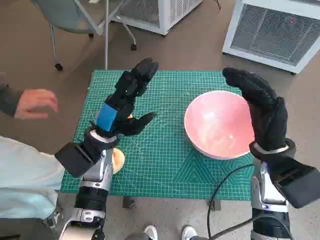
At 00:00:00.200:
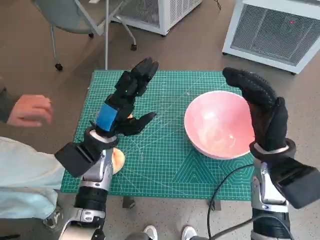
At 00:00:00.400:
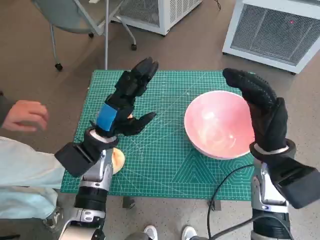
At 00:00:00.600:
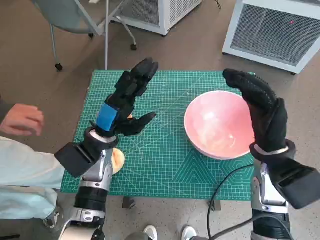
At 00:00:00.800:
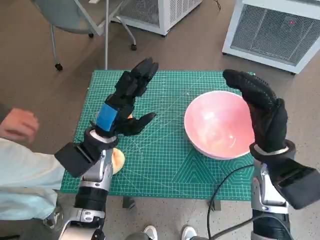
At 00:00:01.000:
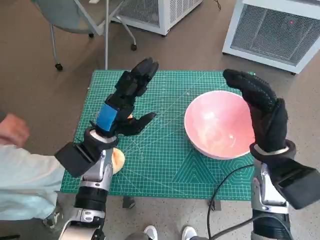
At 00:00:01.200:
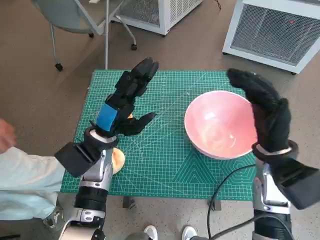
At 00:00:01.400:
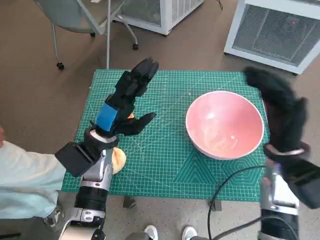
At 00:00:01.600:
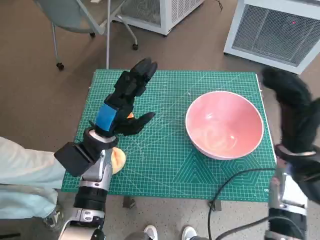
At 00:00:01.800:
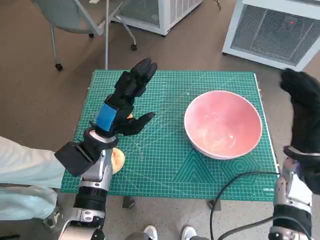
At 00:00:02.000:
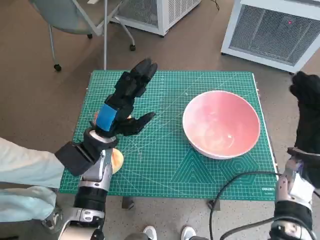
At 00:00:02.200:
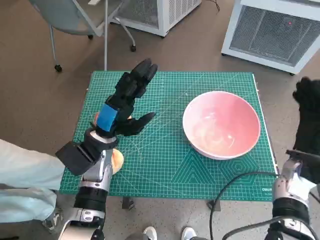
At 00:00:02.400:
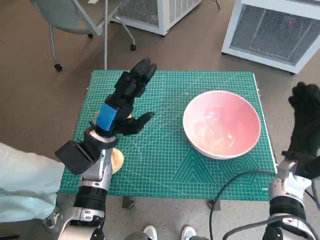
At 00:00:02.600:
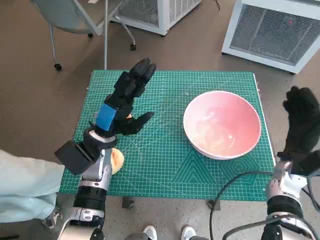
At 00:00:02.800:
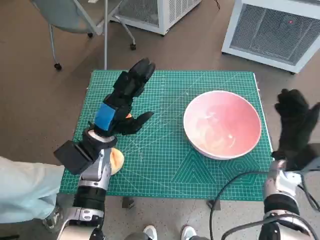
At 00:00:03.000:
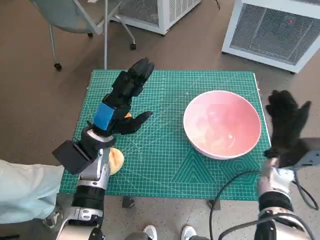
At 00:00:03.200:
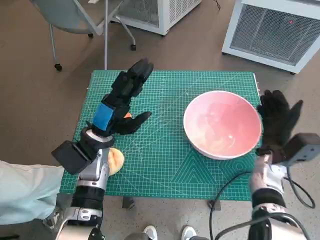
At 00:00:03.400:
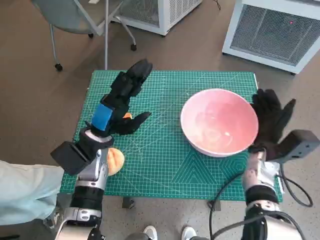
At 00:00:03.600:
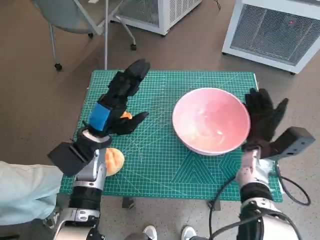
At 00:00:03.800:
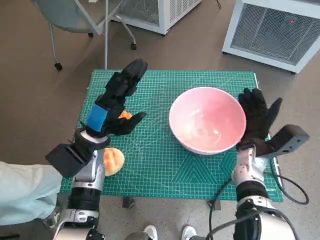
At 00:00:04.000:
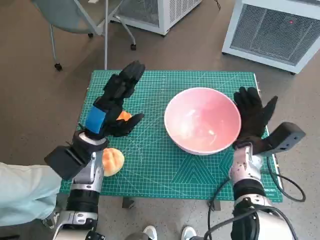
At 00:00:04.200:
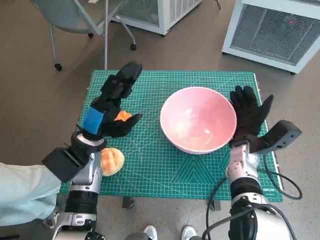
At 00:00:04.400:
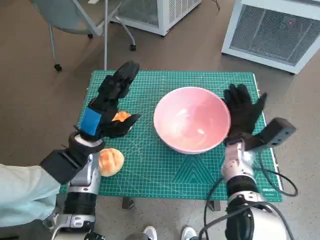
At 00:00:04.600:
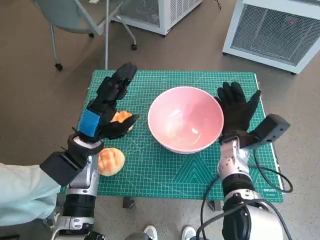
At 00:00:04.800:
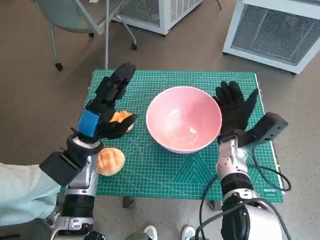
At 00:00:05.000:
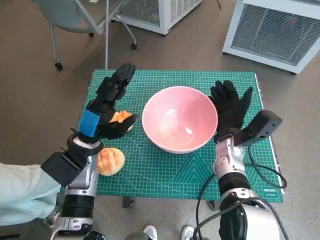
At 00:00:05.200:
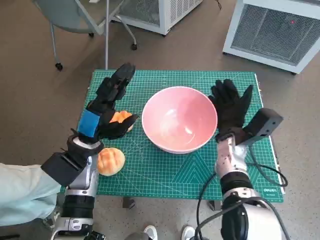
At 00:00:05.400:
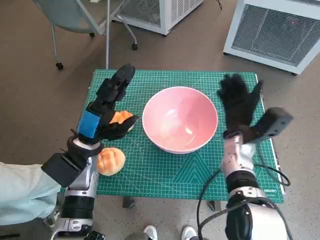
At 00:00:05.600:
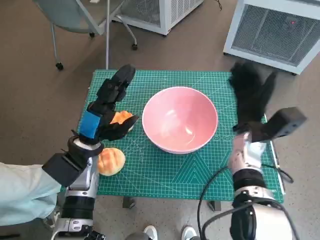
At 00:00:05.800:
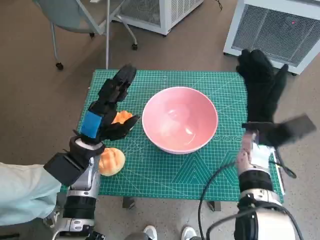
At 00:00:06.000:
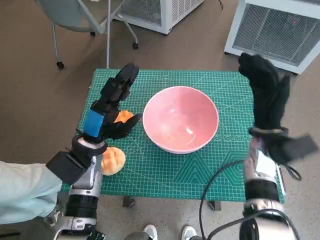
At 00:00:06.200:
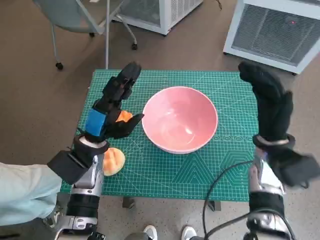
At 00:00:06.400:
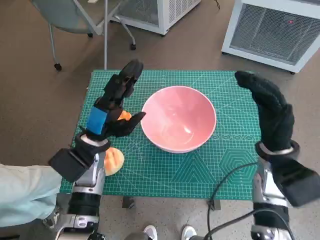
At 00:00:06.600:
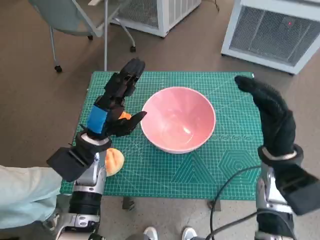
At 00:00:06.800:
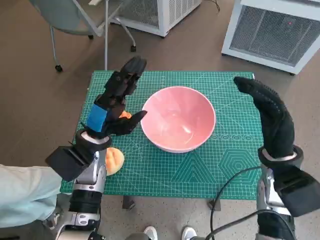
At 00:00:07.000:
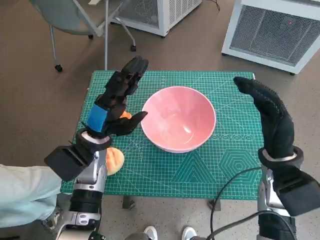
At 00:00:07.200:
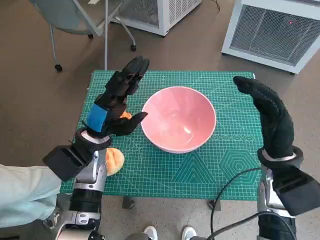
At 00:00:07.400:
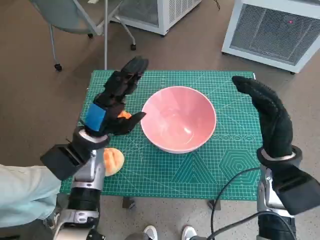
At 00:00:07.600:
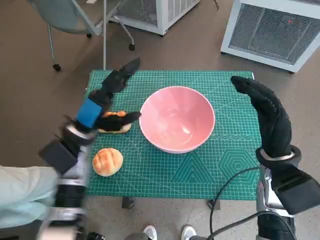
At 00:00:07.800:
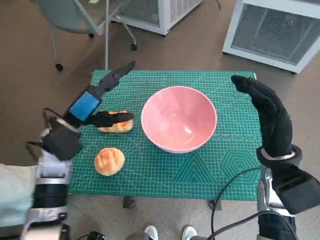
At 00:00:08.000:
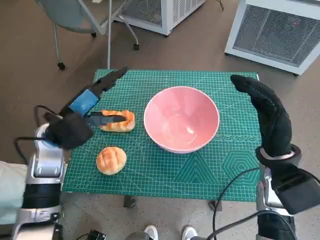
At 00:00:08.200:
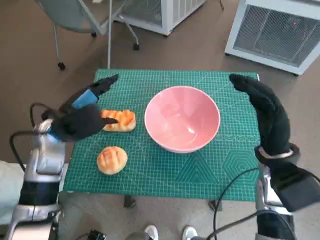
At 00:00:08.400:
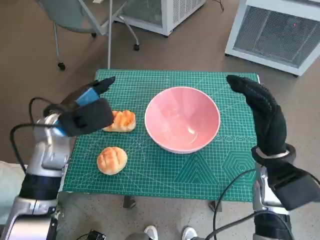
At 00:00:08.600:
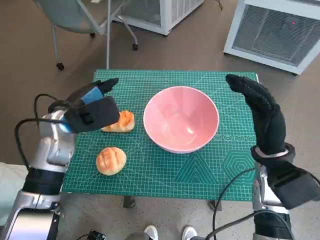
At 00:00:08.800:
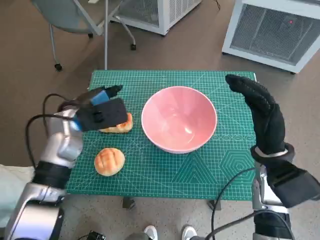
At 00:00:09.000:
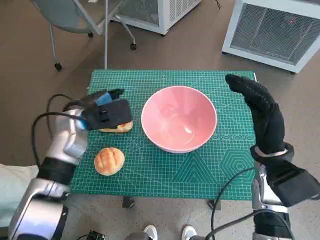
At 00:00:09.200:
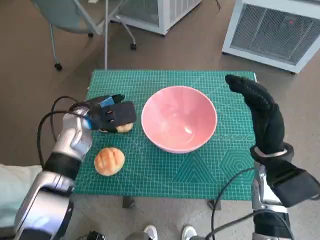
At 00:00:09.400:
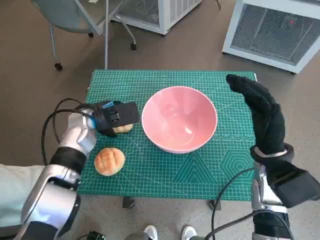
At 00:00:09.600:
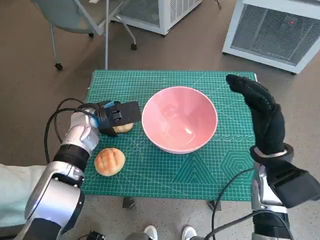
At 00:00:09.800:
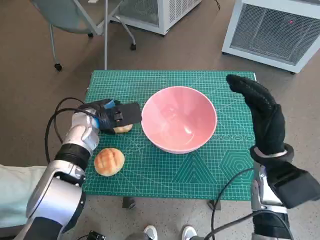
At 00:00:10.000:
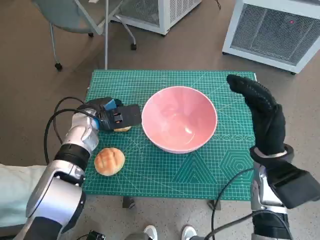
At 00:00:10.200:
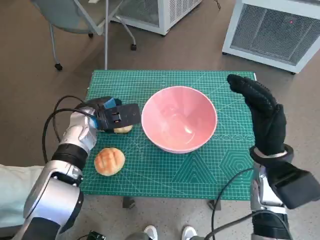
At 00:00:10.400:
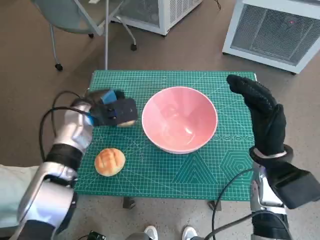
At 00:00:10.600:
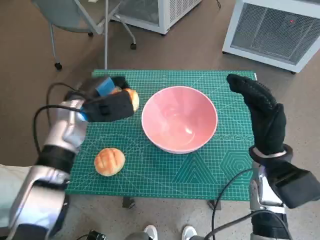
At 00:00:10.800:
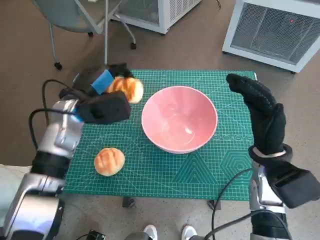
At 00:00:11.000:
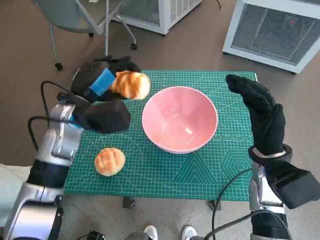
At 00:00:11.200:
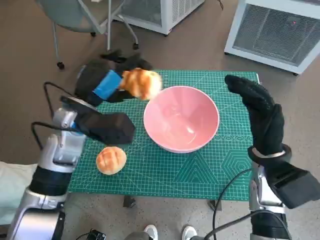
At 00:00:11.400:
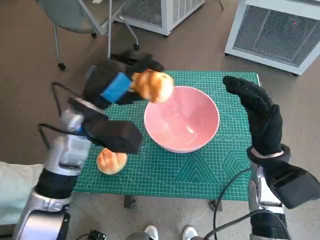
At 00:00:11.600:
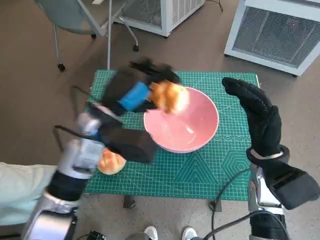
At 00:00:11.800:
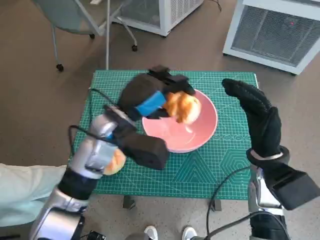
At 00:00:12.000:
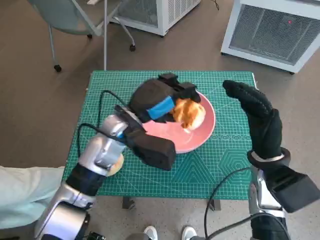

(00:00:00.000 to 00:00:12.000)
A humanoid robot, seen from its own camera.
Task of the whole recording: Push the bowl into the center of the table and put the bread into the bowl.
Step, 00:00:00.000 - 00:00:05.200: Move the pink bowl to the center of table with right hand.
Step, 00:00:05.400 - 00:00:10.000: Grasp the long bread with left hand.
00:00:01.600 - 00:00:03.000: The right hand goes approximately 10 cm downward.
00:00:03.000 - 00:00:04.400: The right hand travels to the left by roughly 10 cm.
00:00:04.400 - 00:00:06.000: The right hand heads upward, covering roughly 5 cm.
00:00:06.000 - 00:00:07.600: The right hand is displaced backward by roughly 5 cm.
00:00:09.000 - 00:00:10.400: The hands make only small movements.
00:00:10.400 - 00:00:12.000: The left hand is displaced to the right by some 10 cm.

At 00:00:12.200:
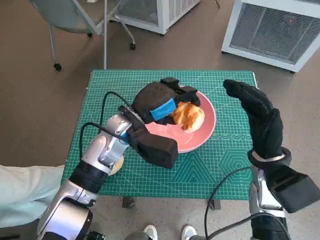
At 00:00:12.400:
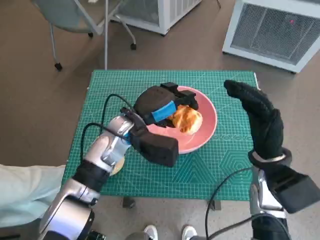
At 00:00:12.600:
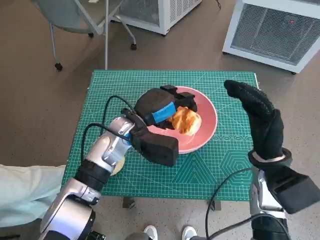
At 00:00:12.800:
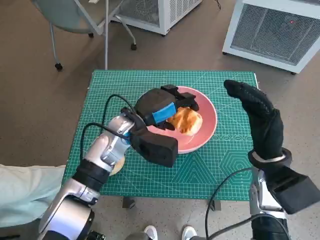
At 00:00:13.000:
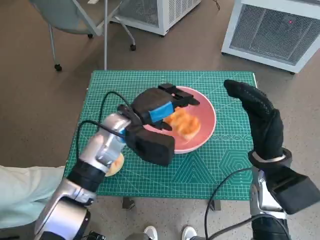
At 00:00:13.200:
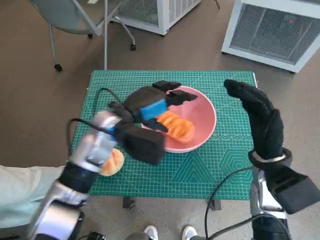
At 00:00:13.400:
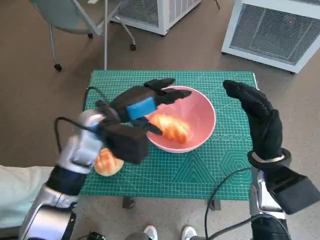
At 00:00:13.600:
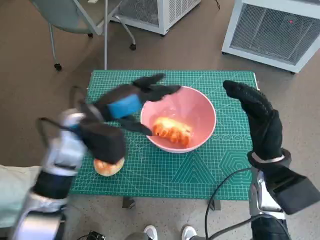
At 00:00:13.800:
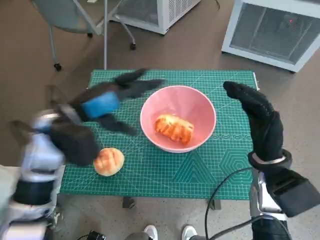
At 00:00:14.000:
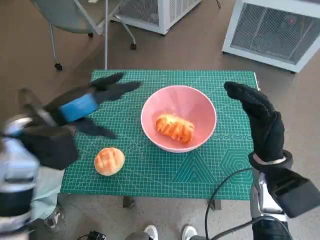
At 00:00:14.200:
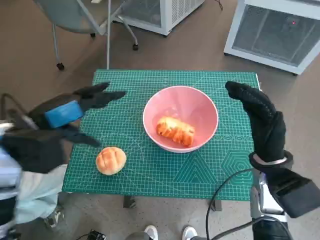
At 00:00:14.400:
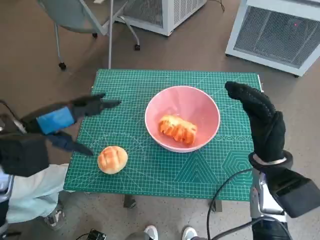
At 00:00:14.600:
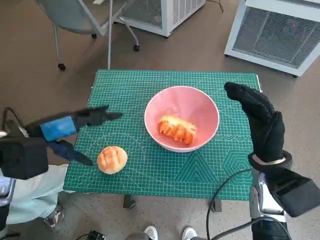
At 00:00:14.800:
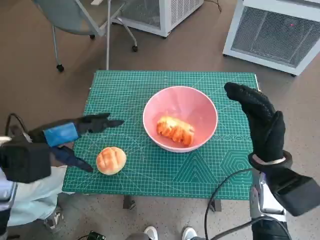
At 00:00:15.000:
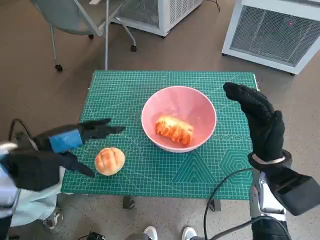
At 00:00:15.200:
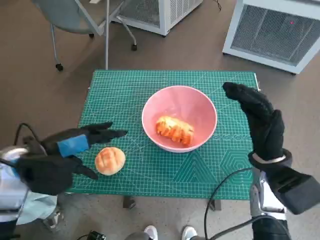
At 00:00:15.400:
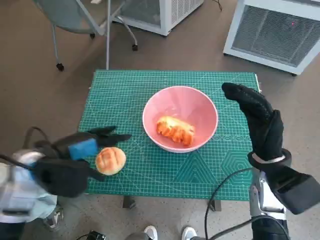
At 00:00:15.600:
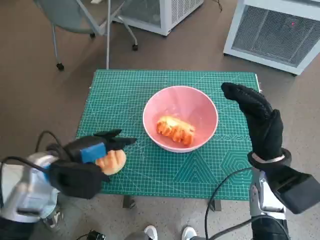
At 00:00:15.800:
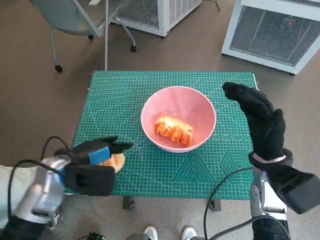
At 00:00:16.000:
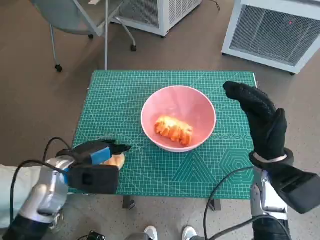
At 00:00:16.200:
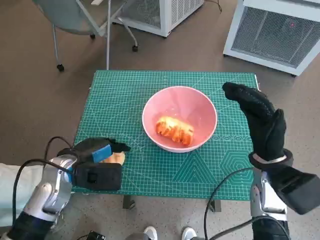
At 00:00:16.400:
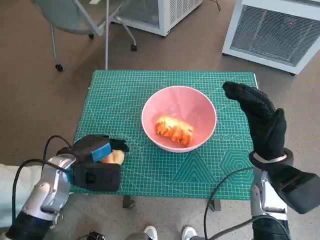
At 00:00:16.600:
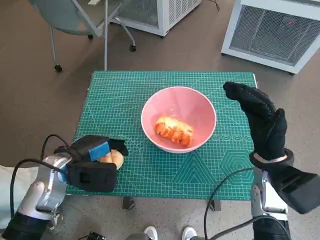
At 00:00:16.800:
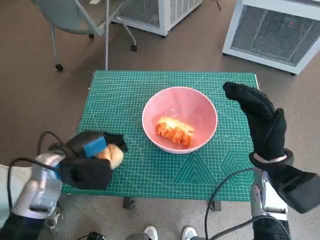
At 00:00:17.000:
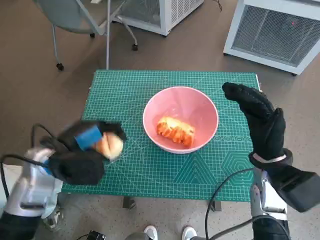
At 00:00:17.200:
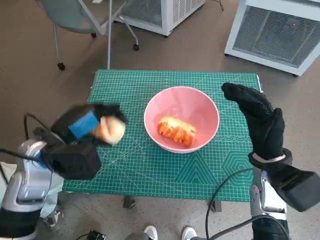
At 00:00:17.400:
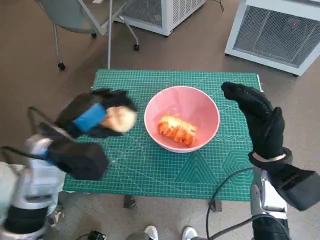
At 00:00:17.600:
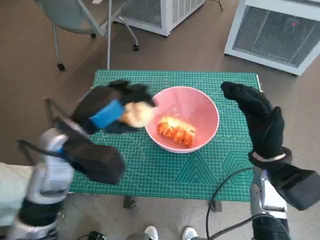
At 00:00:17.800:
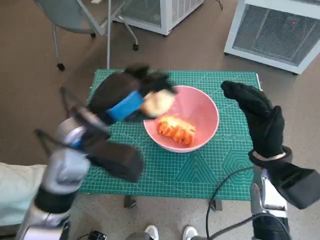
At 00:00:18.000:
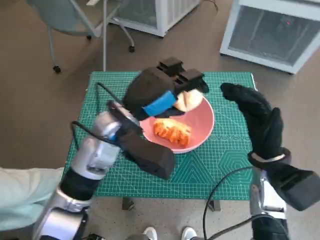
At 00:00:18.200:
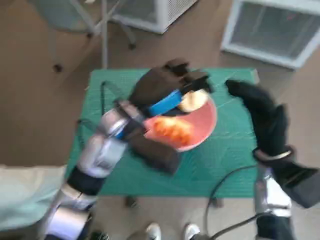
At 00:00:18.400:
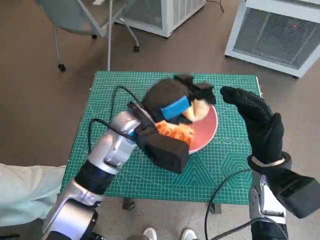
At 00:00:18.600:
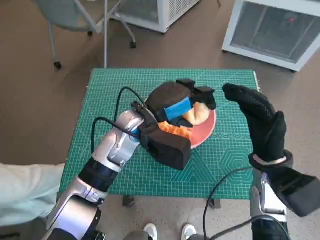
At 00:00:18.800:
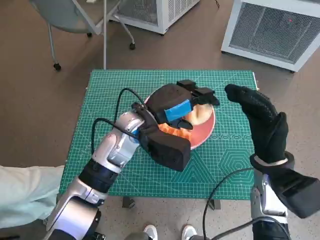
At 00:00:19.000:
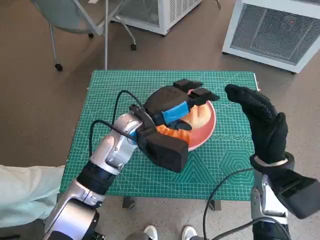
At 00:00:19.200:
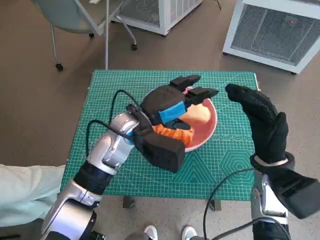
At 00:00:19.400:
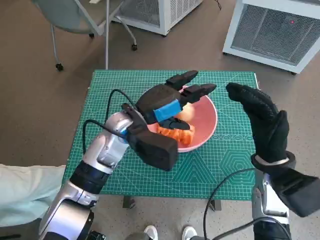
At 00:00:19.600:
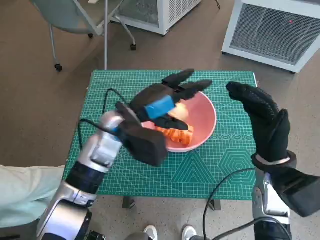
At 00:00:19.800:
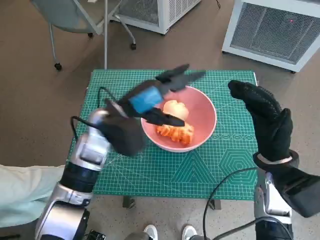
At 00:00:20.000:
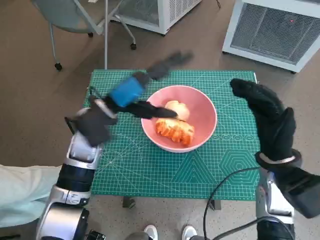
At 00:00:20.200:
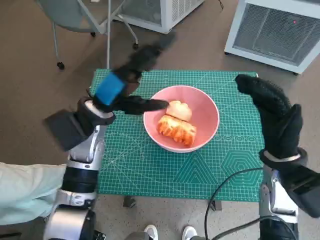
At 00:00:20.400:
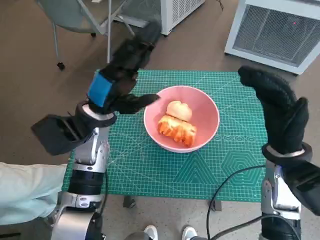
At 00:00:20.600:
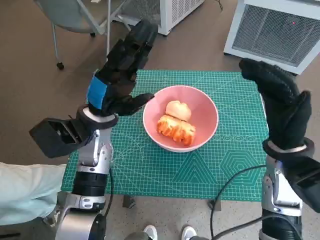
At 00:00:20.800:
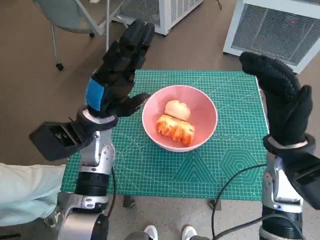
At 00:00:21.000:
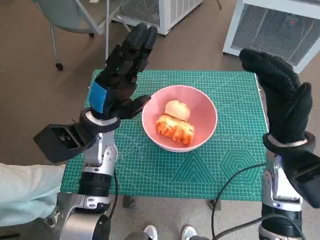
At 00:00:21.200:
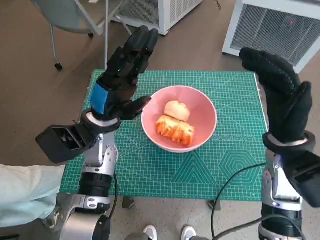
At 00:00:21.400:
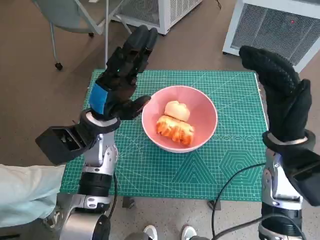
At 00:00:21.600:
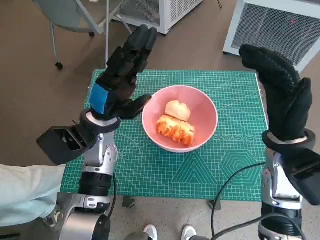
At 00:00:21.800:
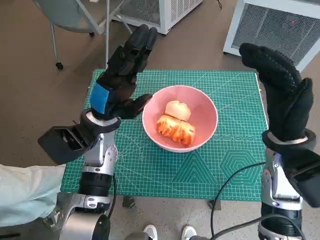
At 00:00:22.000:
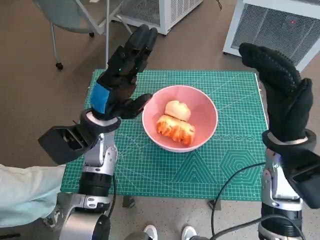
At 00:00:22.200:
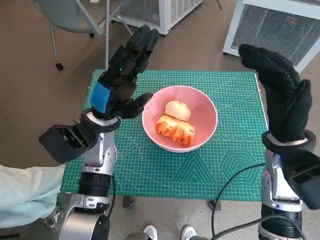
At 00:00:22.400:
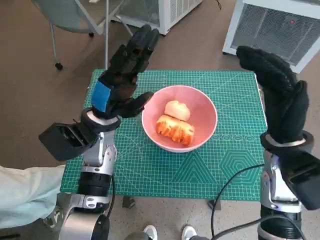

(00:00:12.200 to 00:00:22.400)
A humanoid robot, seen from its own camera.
Task of the whole recording: Push the bowl into the center of the table and put the bread into the bowl.
Step, 00:00:13.200 - 00:00:16.200: Grasp the round bread with left hand.
Step, 00:00:16.400 - 00:00:19.200: Place the round bread in pink bowl with left hand.
00:00:12.200 - 00:00:13.600: The left hand shifts approximately 5 cm to the left.
00:00:13.600 - 00:00:15.200: The left hand is displaced to the left and backward by about 10 cm.
00:00:15.200 - 00:00:16.600: The left hand heads downward, covering roughly 5 cm.
00:00:16.600 - 00:00:18.000: The left hand is displaced to the right and upward by approximately 15 cm.
00:00:18.000 - 00:00:19.400: The left hand shifts by roughly 5 cm.
00:00:19.400 - 00:00:21.000: The right hand goes some 5 cm upward. Meanwhile the left hand is displaced to the left by roughly 5 cm.
00:00:21.000 - 00:00:22.400: The two hands keep their place.
